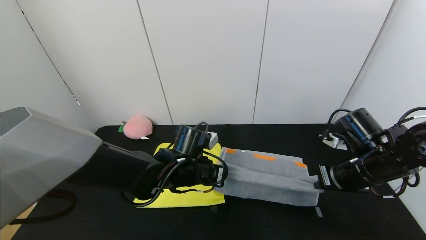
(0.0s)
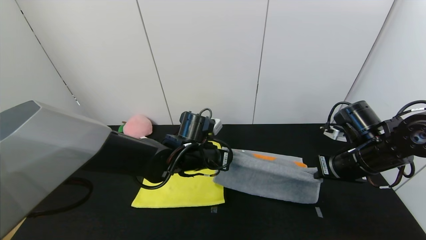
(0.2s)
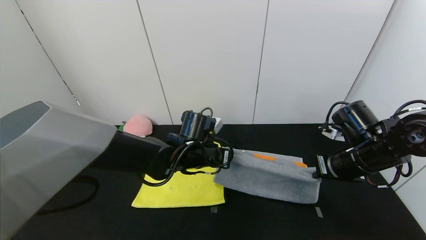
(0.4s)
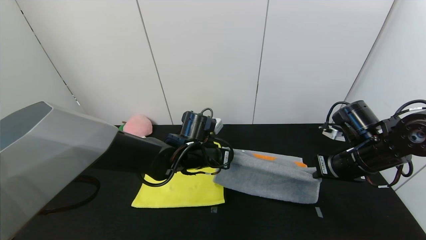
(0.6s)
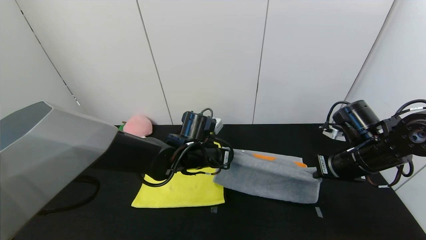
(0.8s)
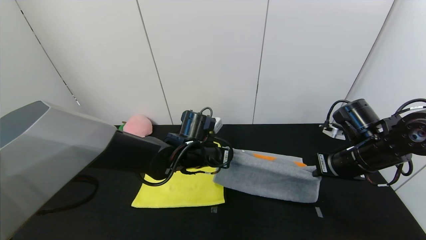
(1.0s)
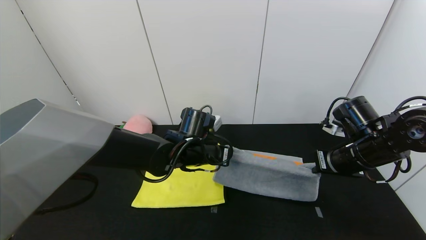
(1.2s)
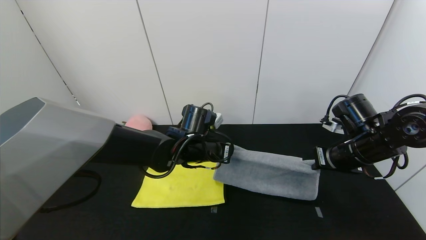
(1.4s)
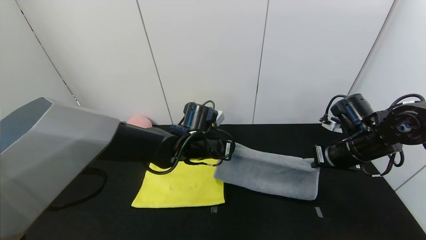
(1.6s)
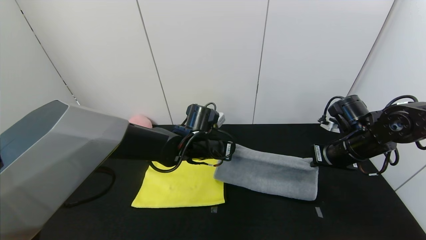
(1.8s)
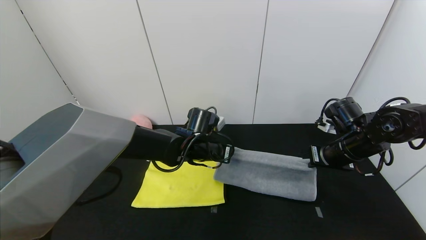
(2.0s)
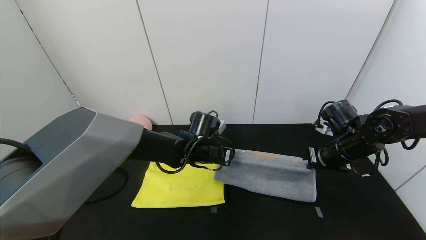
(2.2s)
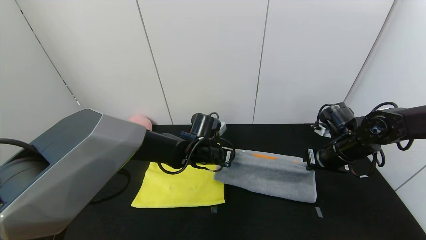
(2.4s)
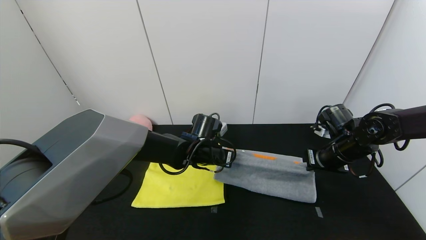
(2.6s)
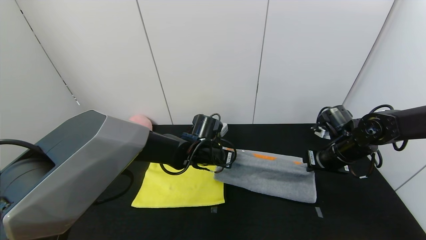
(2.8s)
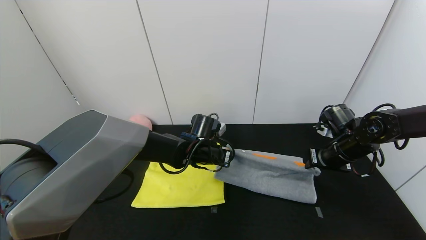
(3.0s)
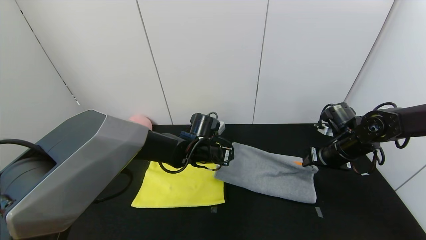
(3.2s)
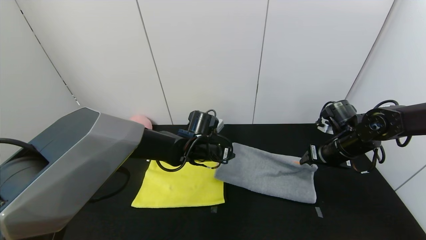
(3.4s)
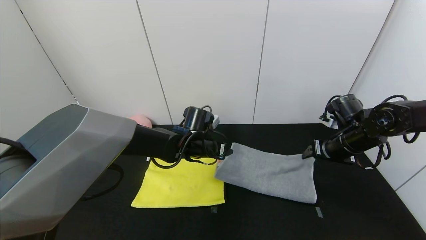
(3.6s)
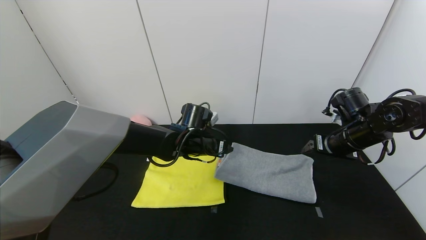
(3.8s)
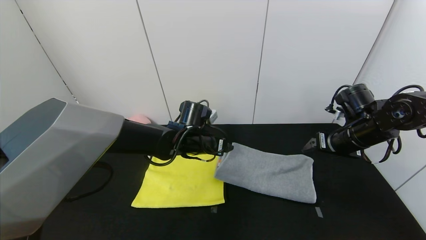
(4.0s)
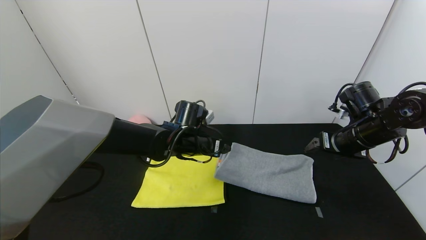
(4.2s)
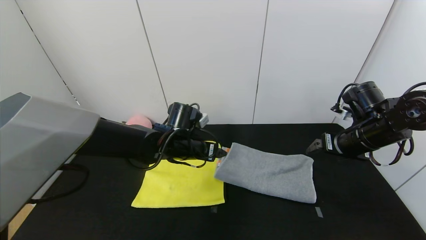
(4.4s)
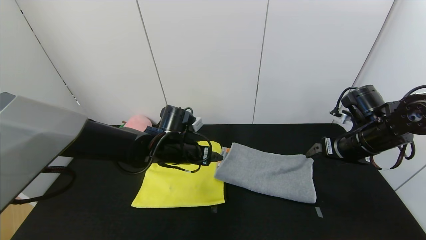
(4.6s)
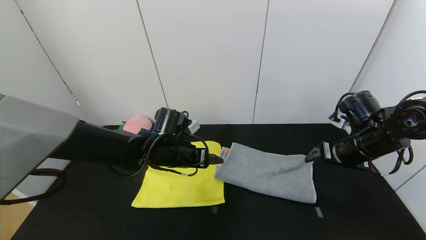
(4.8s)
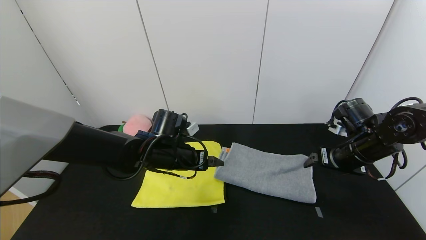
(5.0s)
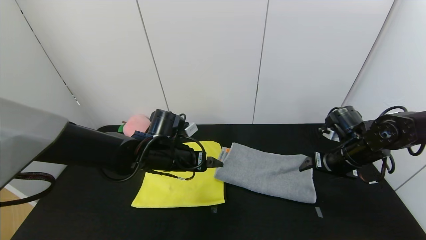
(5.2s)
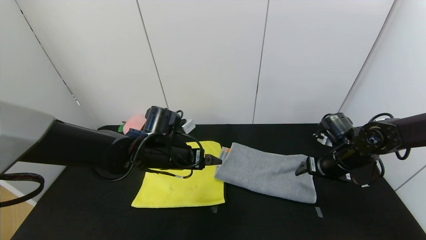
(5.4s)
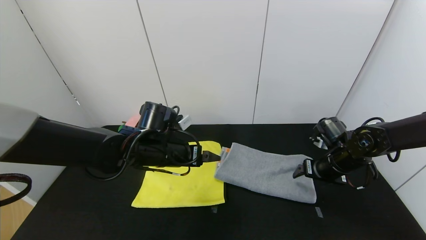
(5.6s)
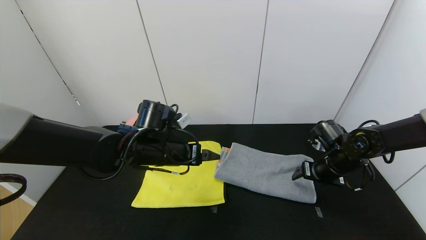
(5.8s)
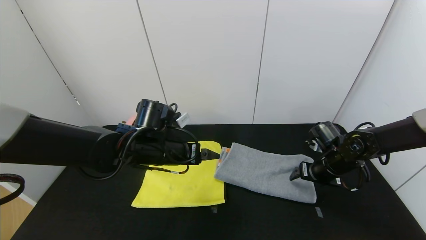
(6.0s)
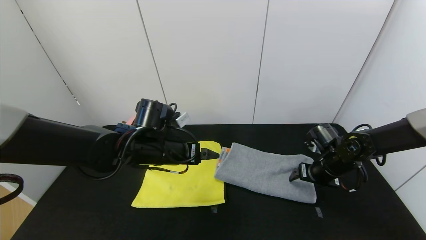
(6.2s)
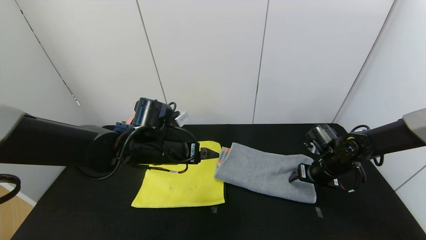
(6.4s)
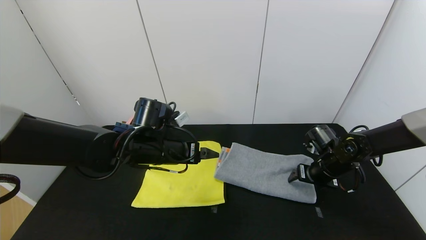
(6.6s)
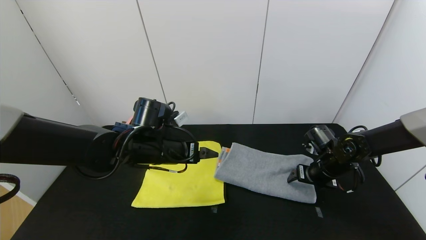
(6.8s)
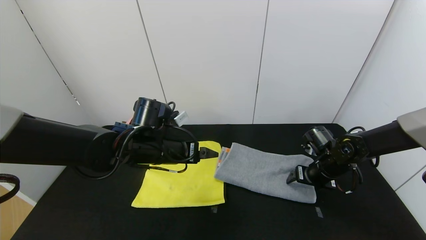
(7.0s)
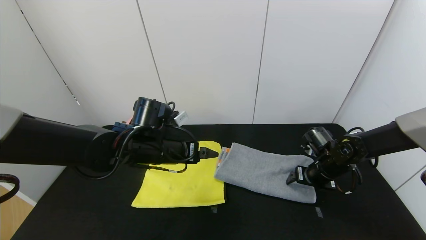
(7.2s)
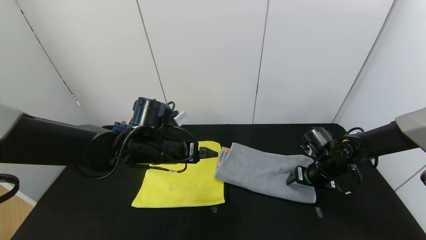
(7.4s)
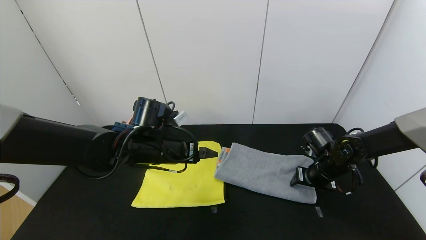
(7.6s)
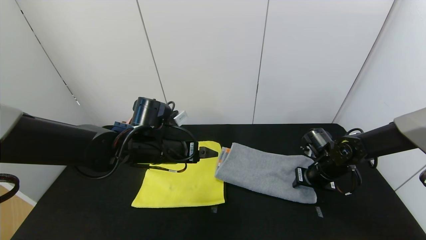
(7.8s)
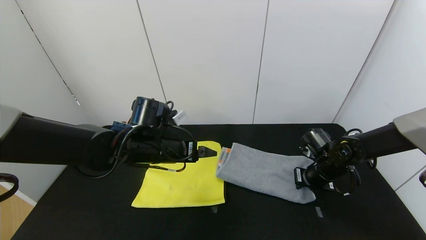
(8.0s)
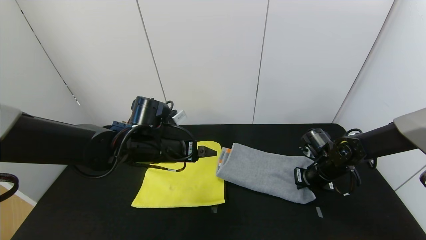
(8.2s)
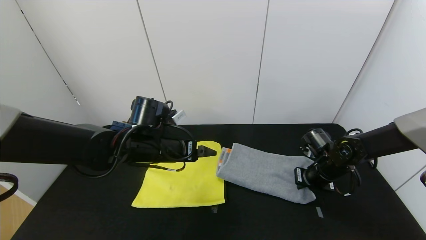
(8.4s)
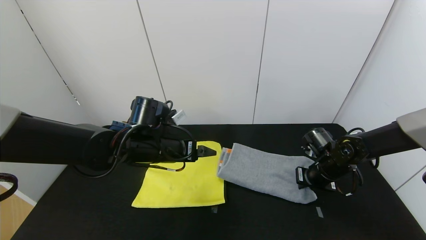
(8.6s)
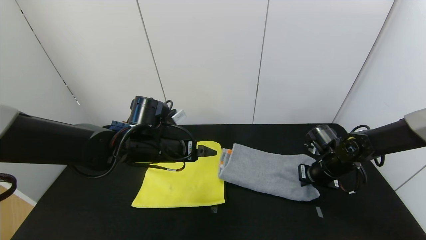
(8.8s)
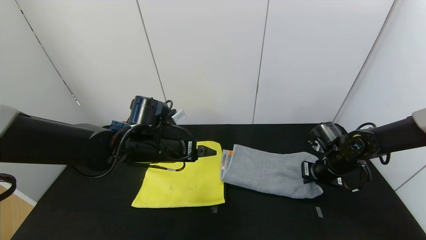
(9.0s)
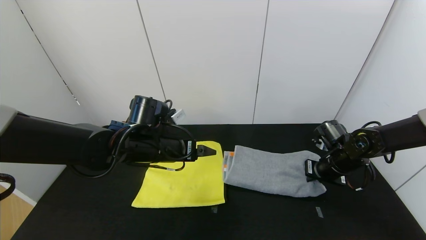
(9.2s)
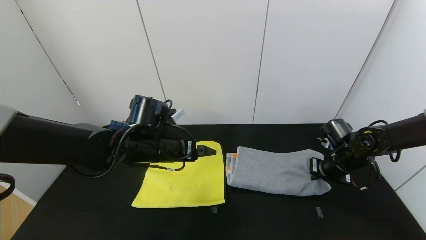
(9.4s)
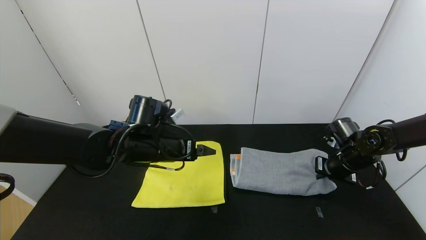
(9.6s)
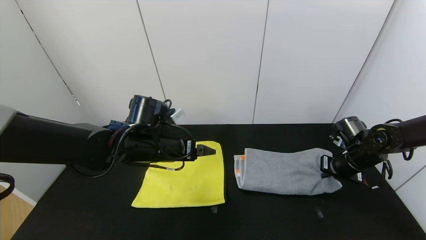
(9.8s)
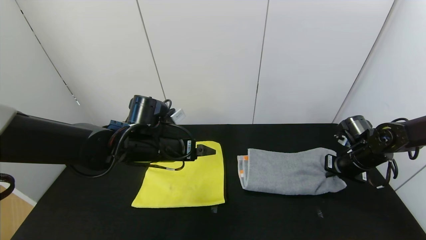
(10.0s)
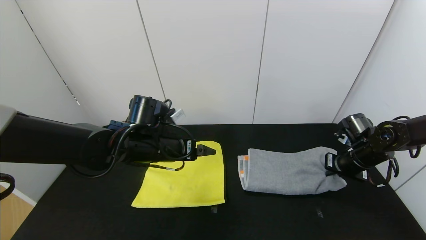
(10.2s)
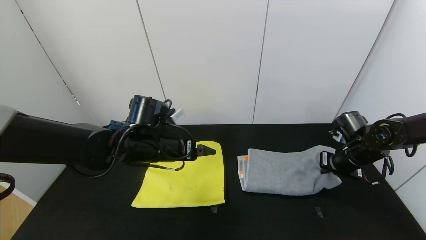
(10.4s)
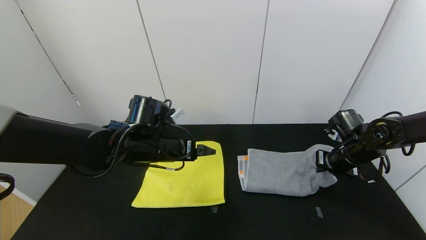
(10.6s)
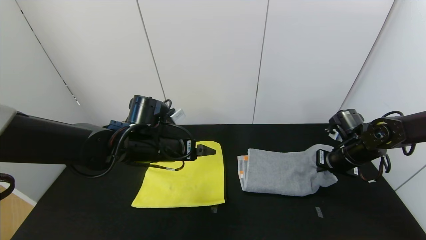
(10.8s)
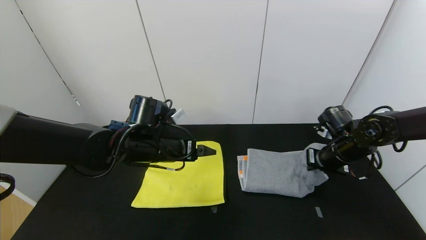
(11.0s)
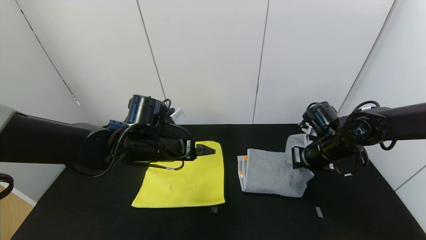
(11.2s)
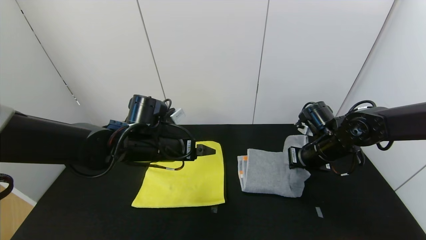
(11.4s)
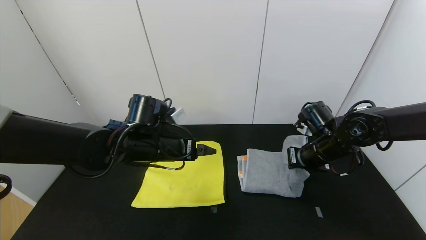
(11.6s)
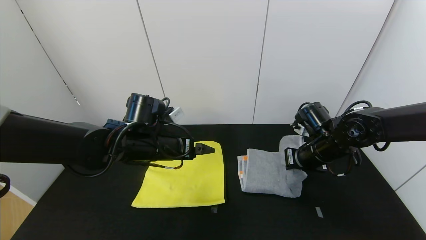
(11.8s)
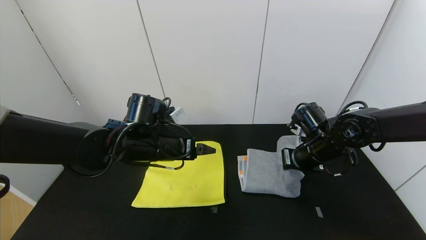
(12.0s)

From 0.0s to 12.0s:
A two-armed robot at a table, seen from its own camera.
Task of the whole recording: Use the gripper to fold the yellow towel and grey towel in half twice,then put the yellow towel on the grey towel.
Step, from 0.0s to 3.4s: Fold the gray towel upwards with the left gripper.
From 0.0s to 1.6s: The left gripper moves about 5 cm.
From 1.6s to 3.0s: The right gripper changes place by about 5 cm, and opens up. Meanwhile the left gripper shifts by roughly 5 cm, and opens up.
From 3.0s to 4.4s: The right gripper goes about 5 cm upward, and opens its fingers. Meanwhile the left gripper changes place by about 5 cm, and opens its fingers.
From 4.4s to 6.0s: The right gripper shifts approximately 10 cm downward, while the left gripper ends up approximately 5 cm from where it was.
From 6.0s to 7.6s: The grippers stay close to where they were, moving slightly.
From 7.6s to 9.0s: The right gripper closes up.
From 10.4s to 12.0s: The right gripper heads to the left, covering about 10 cm.

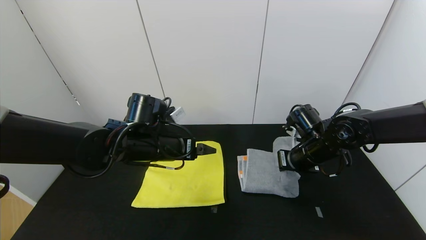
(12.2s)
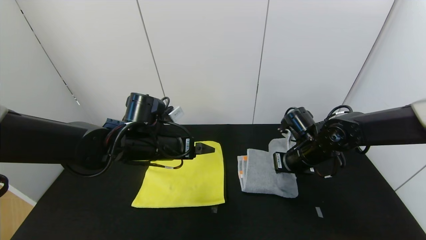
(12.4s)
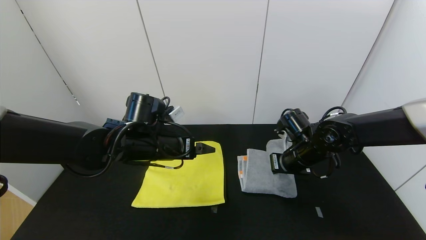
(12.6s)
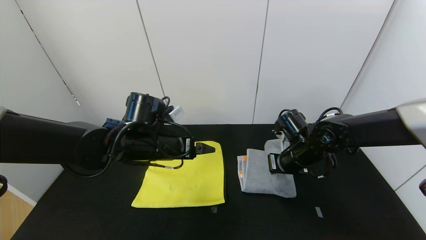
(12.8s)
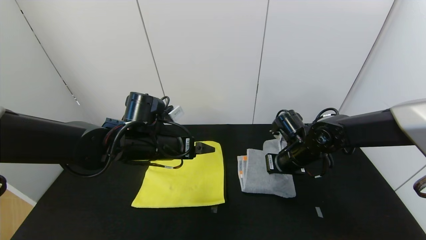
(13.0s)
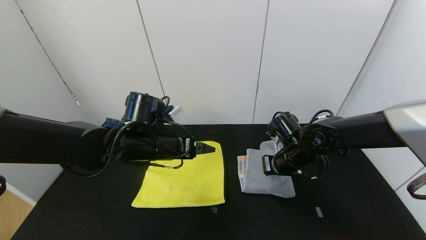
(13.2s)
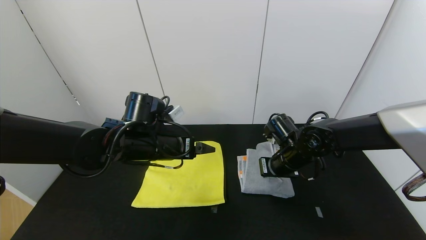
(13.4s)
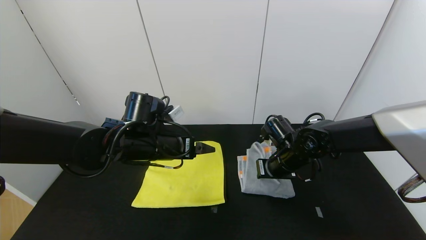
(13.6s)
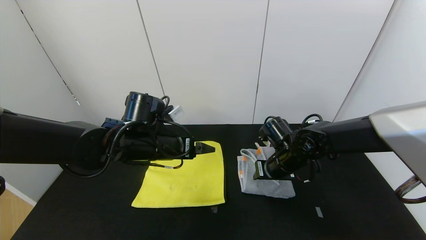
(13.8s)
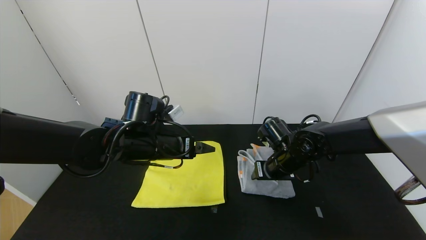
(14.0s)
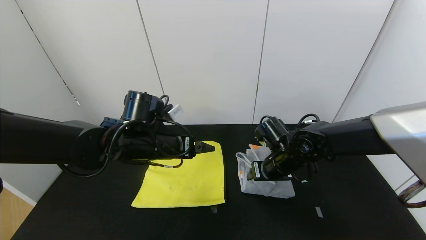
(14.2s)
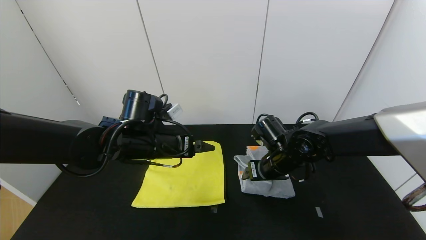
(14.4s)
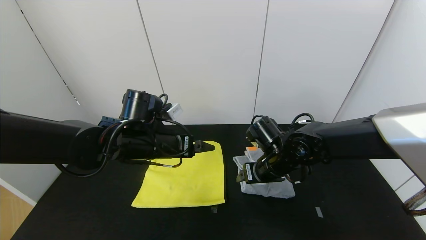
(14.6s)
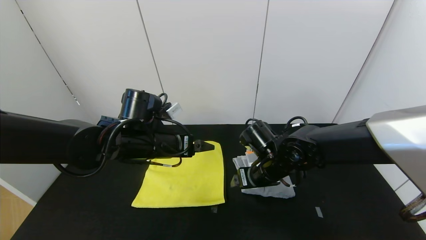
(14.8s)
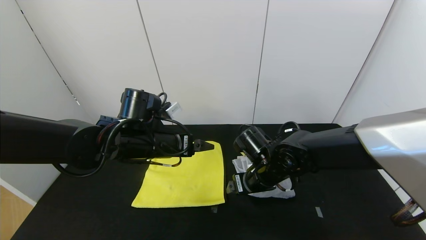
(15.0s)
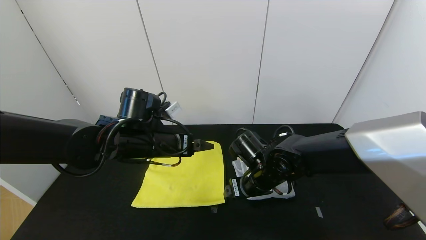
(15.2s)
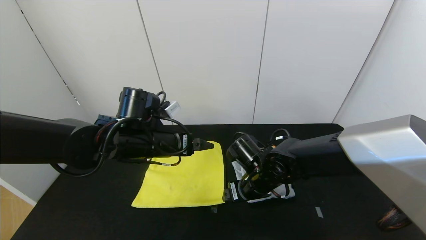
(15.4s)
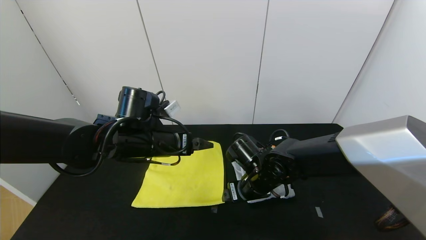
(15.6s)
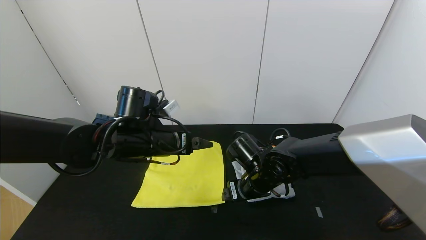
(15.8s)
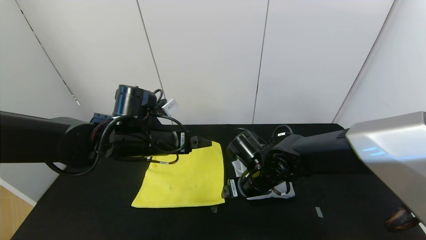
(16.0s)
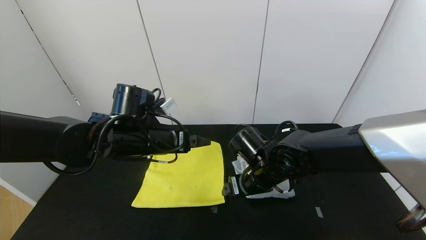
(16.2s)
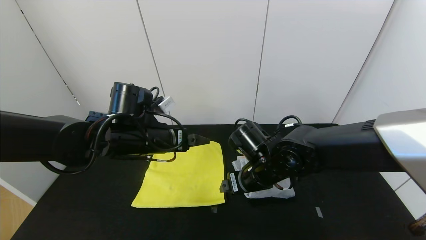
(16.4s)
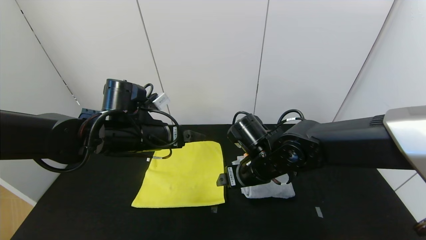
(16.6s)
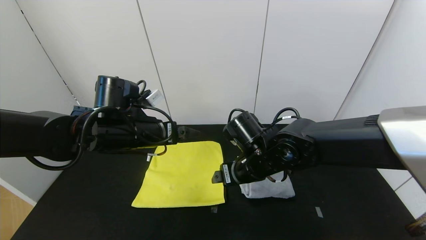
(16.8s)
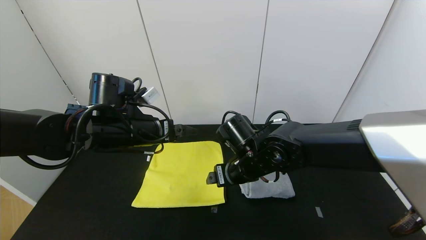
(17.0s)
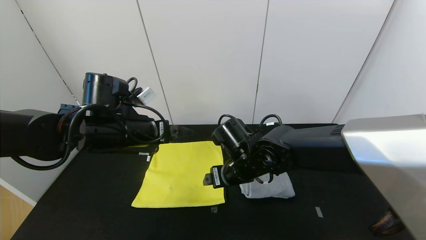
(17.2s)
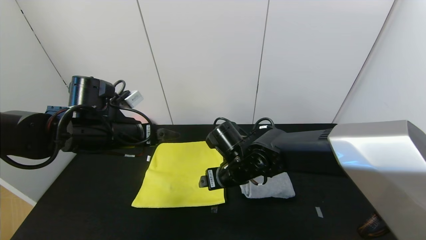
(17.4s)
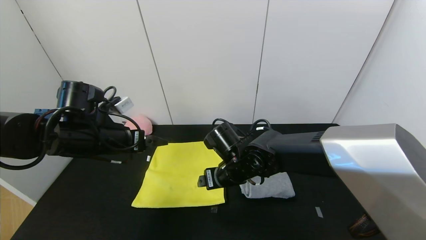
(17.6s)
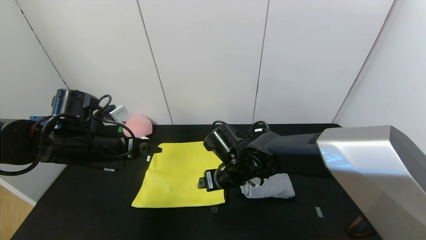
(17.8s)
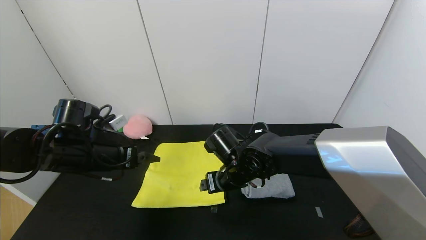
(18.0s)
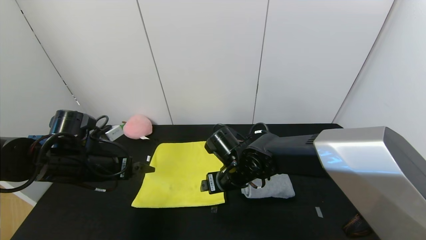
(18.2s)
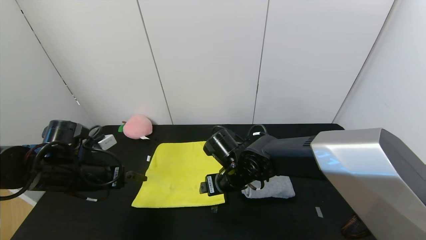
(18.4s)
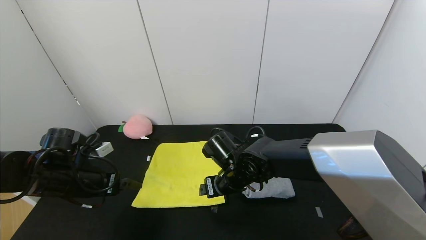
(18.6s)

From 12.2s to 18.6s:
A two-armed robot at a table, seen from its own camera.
Task of the whole recording: Use the gripper to fold the yellow towel and grey towel in half twice,then put the yellow towel on the grey towel.
Step, from 12.2s to 16.8s: Fold the gray towel from right to left with right gripper.
From 12.2s to 13.8s: The right gripper travels to the left by about 5 cm, and opens its fingers.
From 13.8s to 15.4s: The right gripper goes some 5 cm to the left, and opens.
From 15.4s to 17.0s: The right gripper heads upward, covering roughly 5 cm.
From 17.0s to 18.6s: The right gripper moves approximately 5 cm. Meanwhile the left gripper shifts approximately 15 cm to the left and downward.
